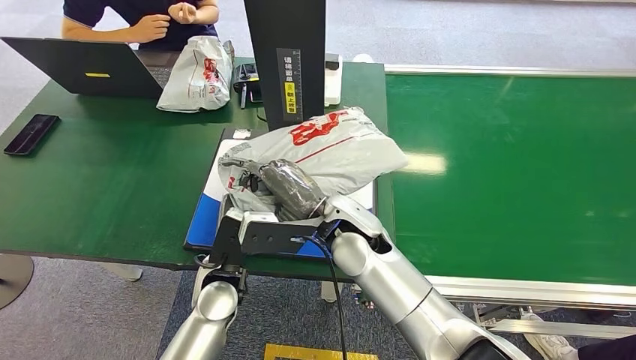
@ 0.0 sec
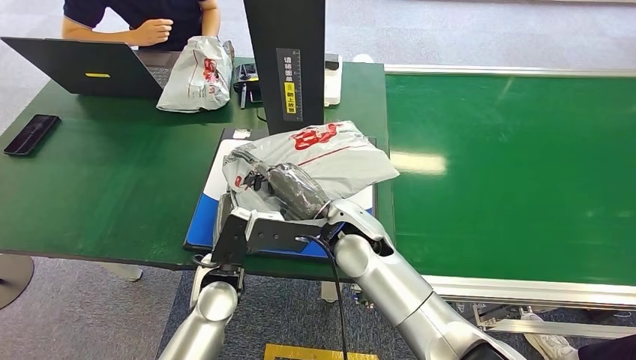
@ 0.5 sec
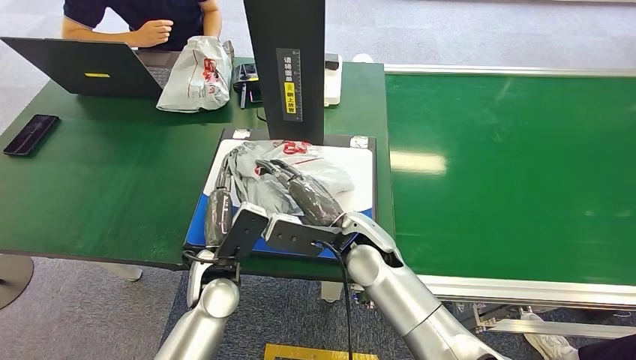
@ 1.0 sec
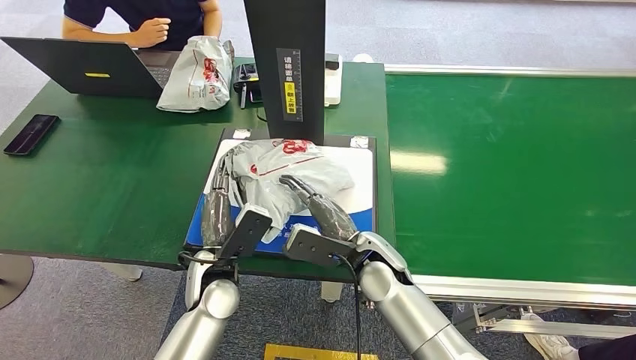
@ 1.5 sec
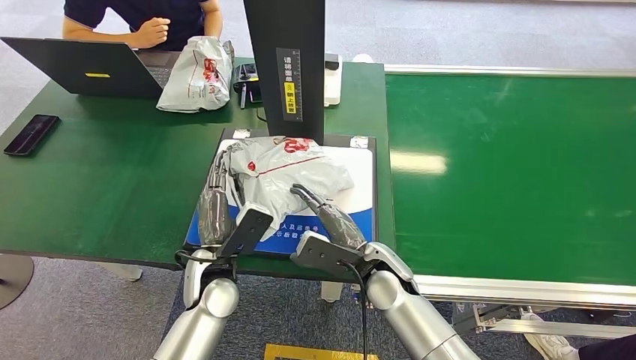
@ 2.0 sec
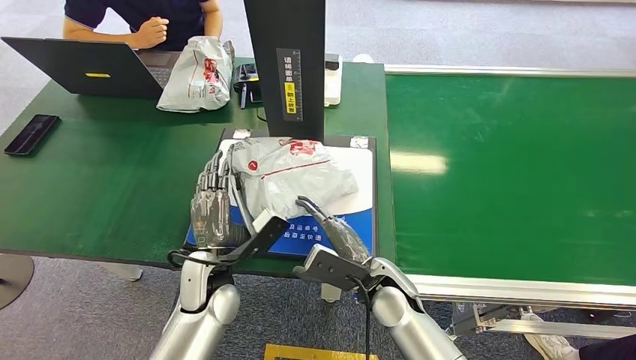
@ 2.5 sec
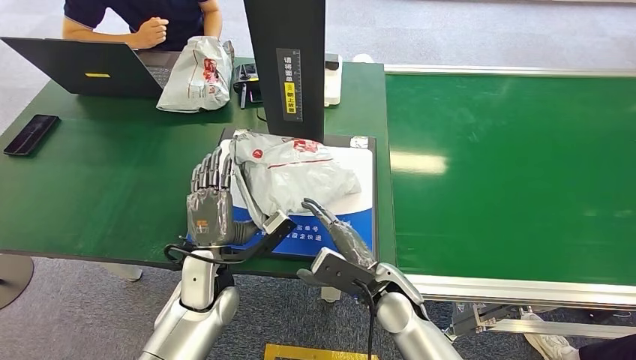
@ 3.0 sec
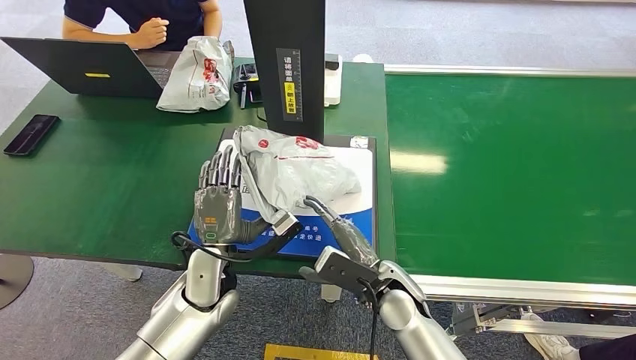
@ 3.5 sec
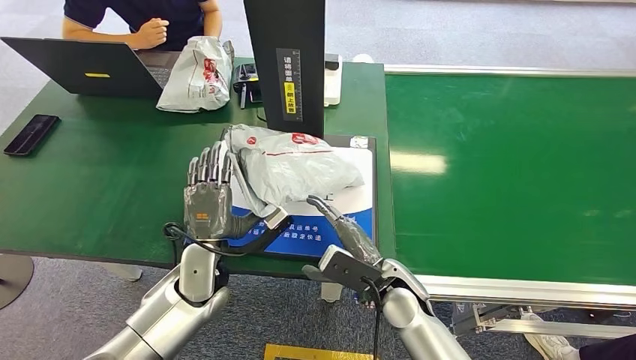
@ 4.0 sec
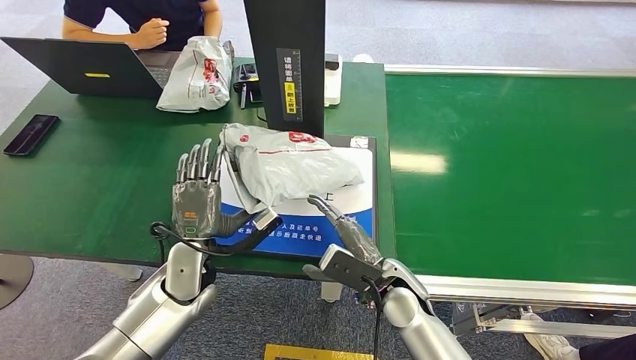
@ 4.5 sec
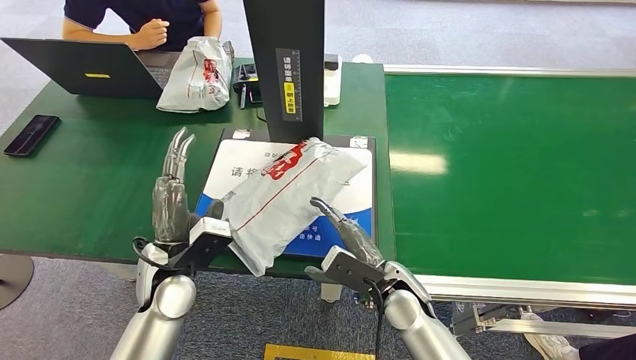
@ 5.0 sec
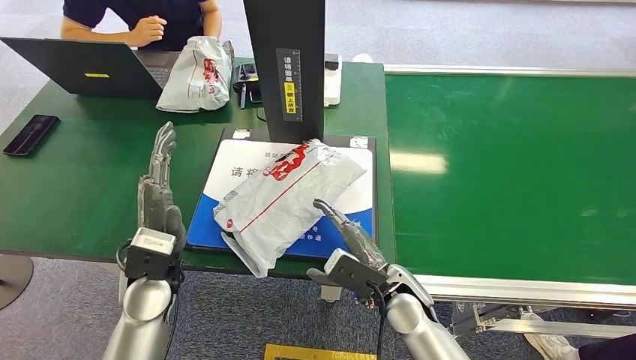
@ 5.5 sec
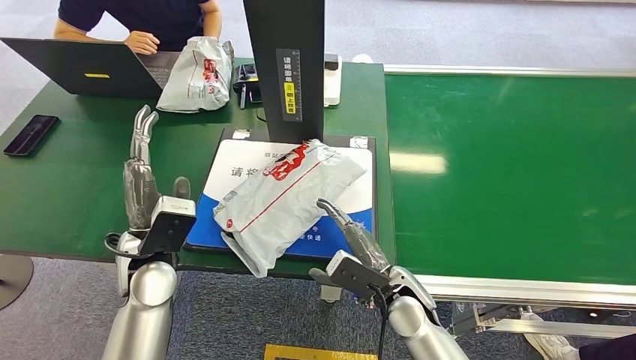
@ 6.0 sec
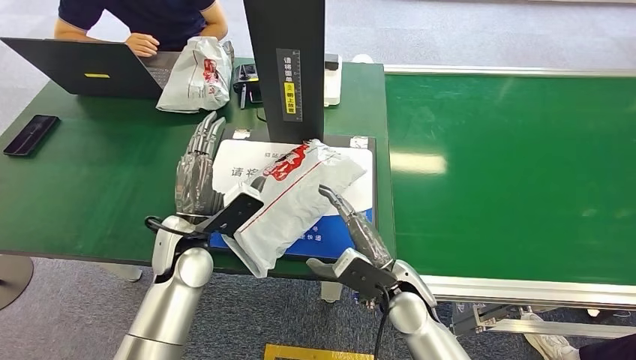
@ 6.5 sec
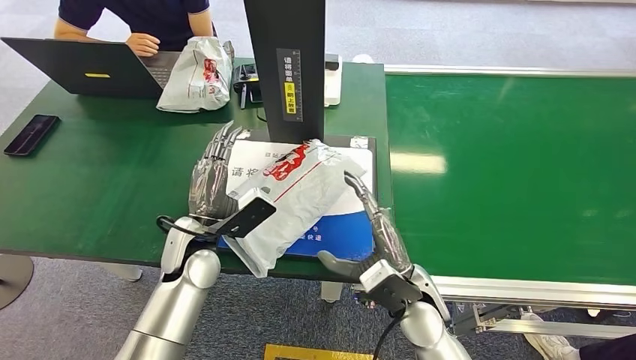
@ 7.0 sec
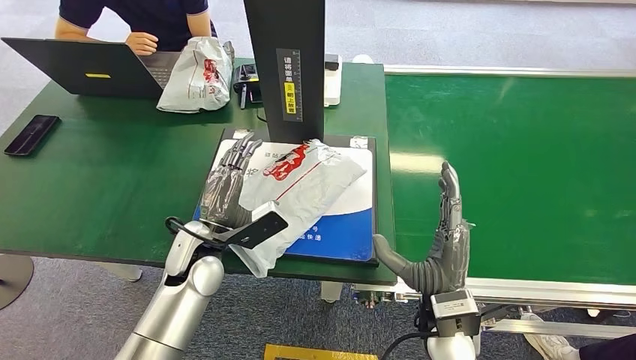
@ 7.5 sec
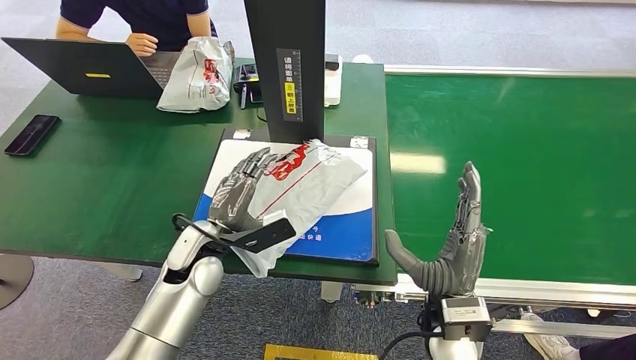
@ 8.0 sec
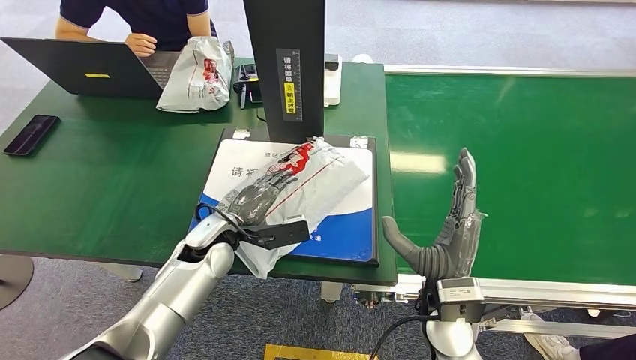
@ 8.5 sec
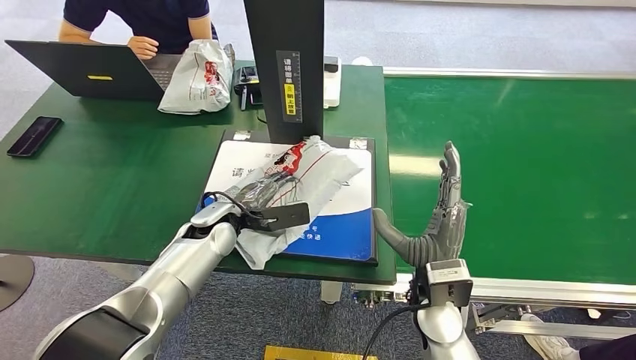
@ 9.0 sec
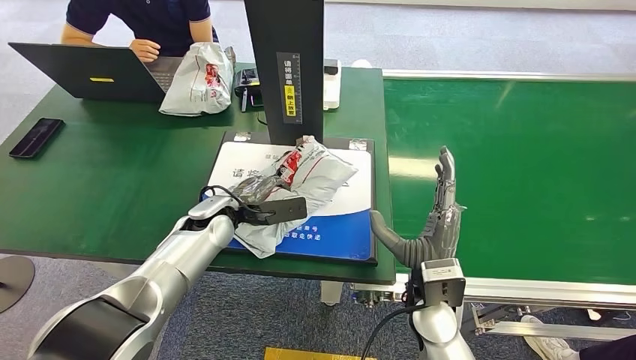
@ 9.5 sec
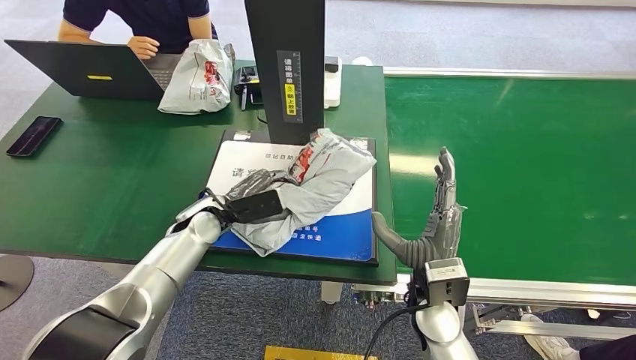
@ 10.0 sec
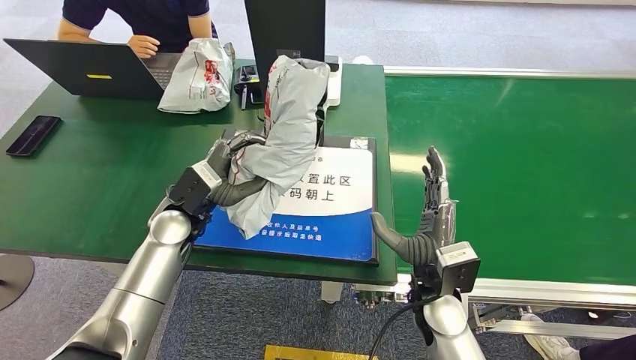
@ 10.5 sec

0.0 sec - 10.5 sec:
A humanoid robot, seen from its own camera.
Task of the whole recording: Weigh the package on the weighing device and place it in the left basket.
Step, 0.0 sec - 5.0 sec: Place the package onto the inbound machine.
0.0 sec - 2.0 sec: The right hand heads downward and to the right, covering some 15 cm.
4.0 sec - 6.5 sec: The left hand heads upward, covering approximately 5 cm.
6.5 sec - 8.5 sec: The left hand changes place by about 5 cm; the right hand moves about 5 cm.

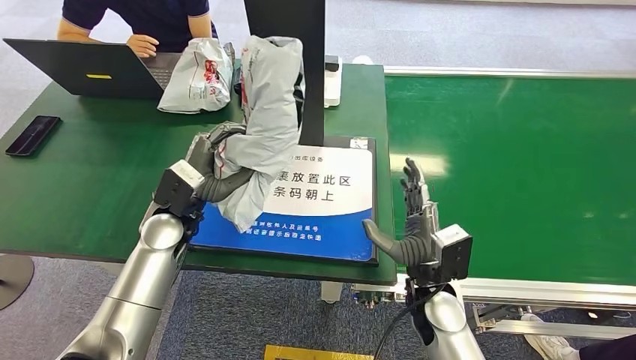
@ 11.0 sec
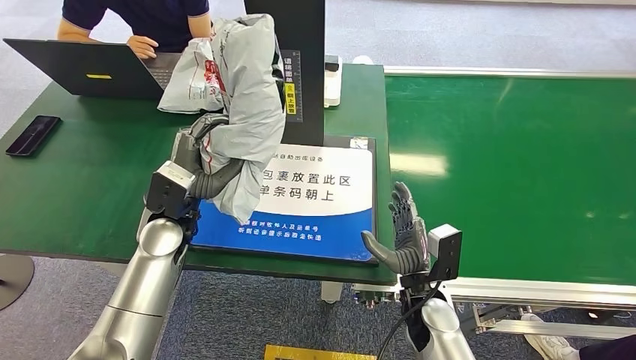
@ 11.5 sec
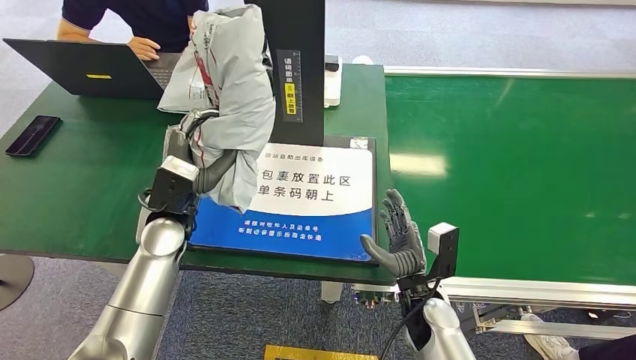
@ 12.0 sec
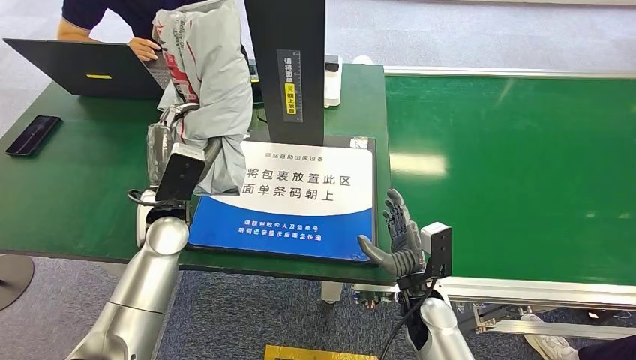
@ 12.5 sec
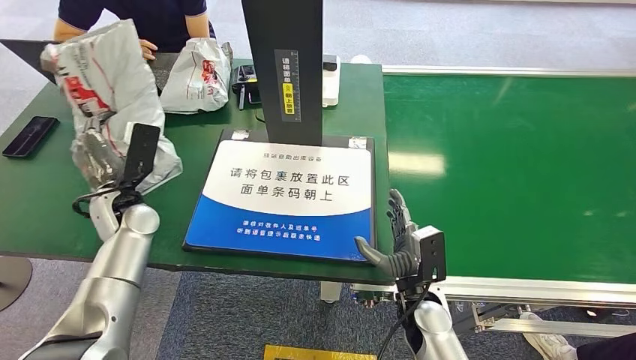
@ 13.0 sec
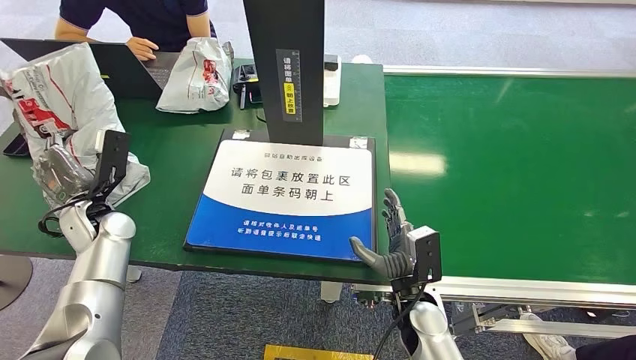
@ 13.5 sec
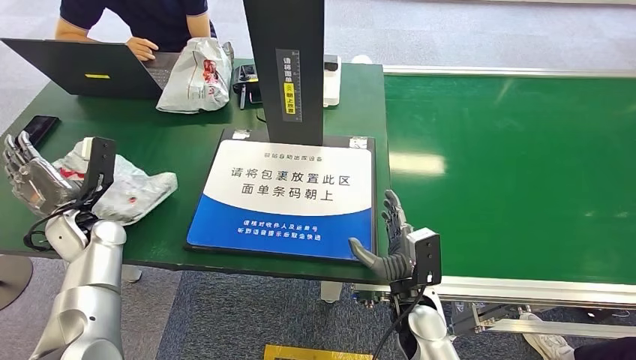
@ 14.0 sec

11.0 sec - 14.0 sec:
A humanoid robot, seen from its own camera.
Task of the whole recording: Weigh the package on the weighing device and place it in the left basket.
Step, 13.0 sec - 14.0 sec: Place the package into the parcel locker.
11.0 sec - 12.5 sec: The right hand is displaced downward by some 5 cm.
